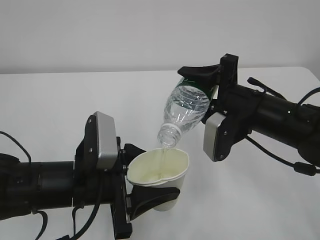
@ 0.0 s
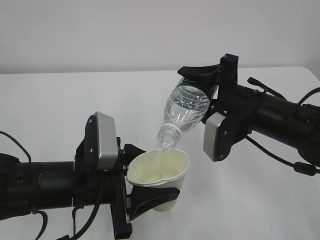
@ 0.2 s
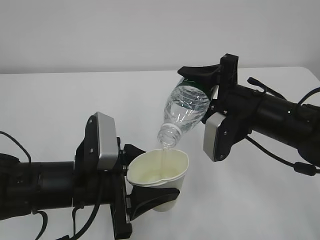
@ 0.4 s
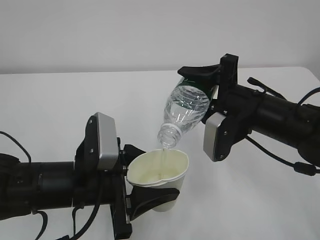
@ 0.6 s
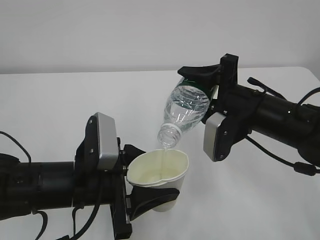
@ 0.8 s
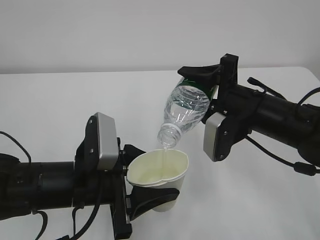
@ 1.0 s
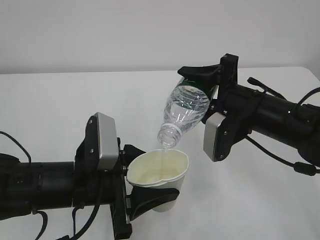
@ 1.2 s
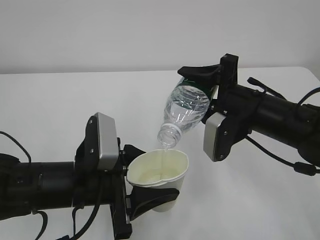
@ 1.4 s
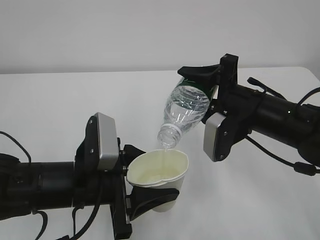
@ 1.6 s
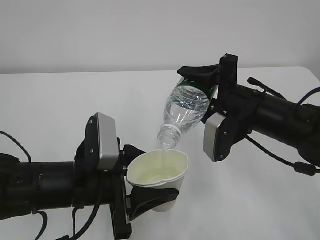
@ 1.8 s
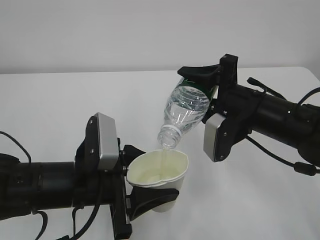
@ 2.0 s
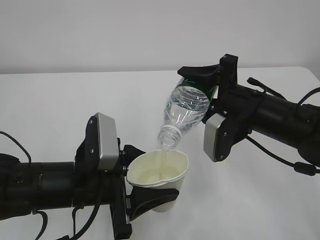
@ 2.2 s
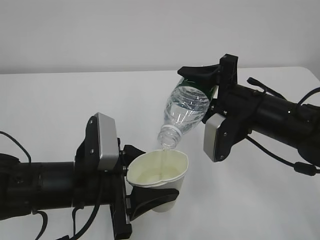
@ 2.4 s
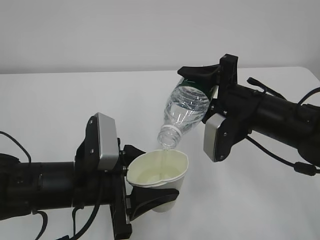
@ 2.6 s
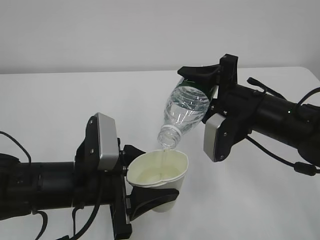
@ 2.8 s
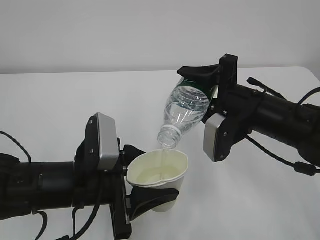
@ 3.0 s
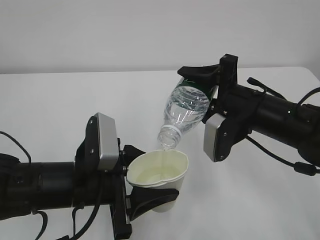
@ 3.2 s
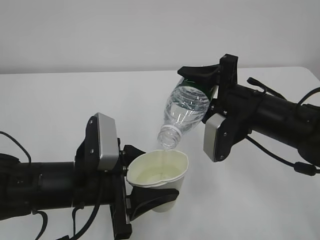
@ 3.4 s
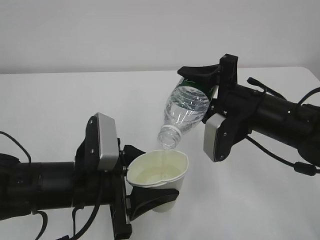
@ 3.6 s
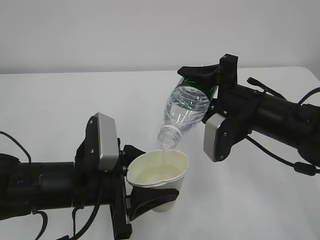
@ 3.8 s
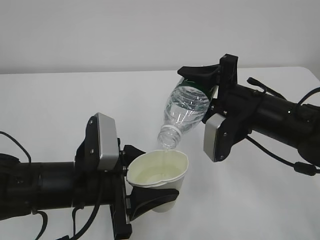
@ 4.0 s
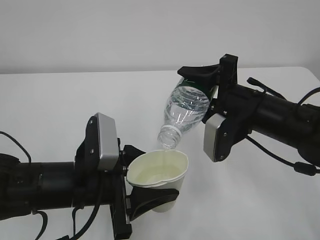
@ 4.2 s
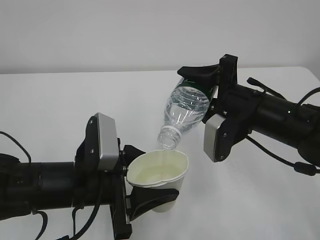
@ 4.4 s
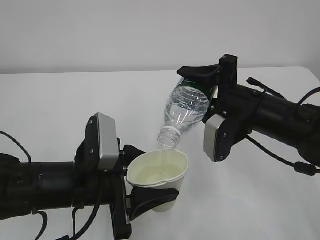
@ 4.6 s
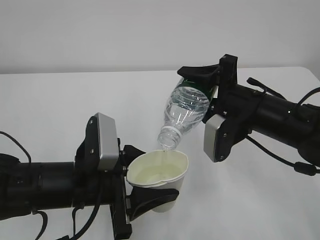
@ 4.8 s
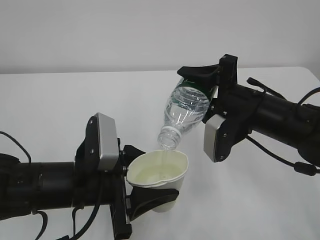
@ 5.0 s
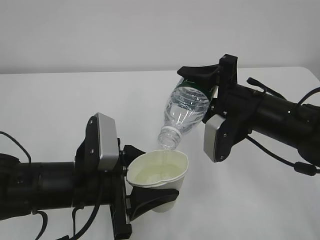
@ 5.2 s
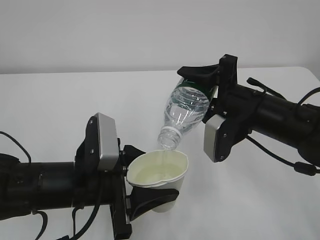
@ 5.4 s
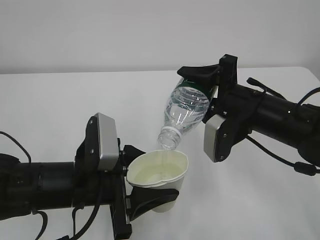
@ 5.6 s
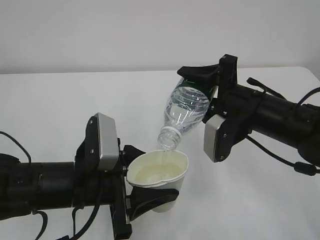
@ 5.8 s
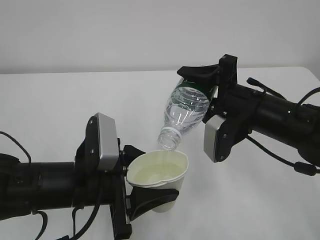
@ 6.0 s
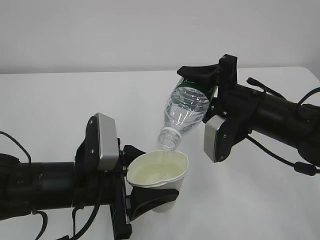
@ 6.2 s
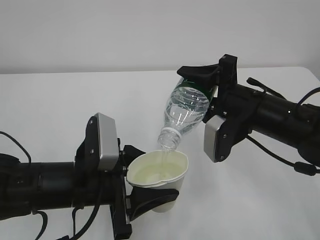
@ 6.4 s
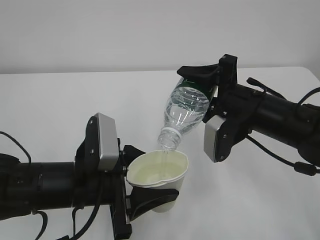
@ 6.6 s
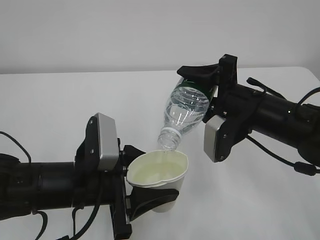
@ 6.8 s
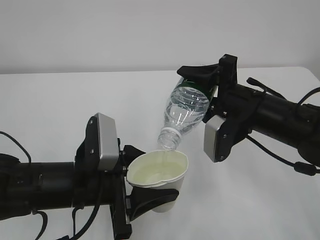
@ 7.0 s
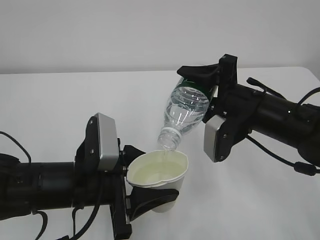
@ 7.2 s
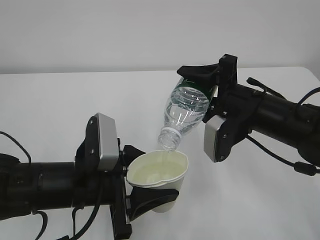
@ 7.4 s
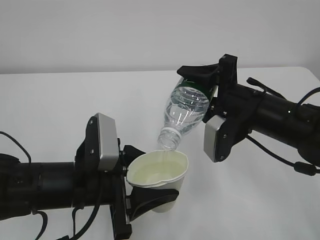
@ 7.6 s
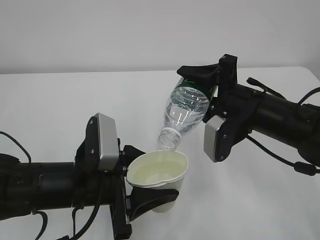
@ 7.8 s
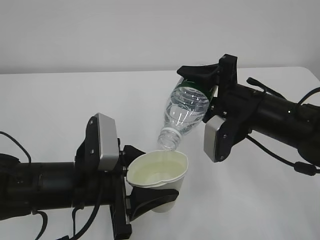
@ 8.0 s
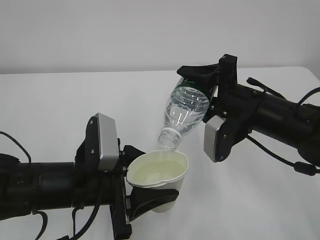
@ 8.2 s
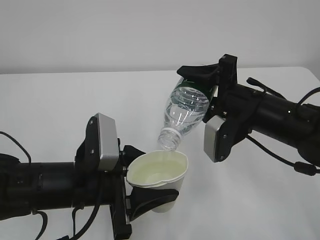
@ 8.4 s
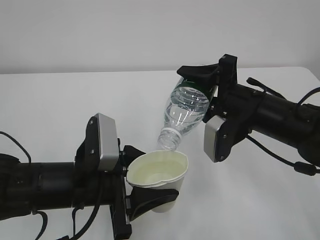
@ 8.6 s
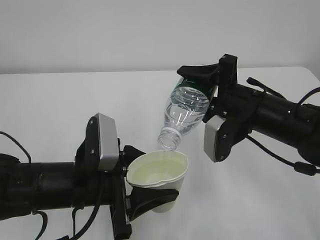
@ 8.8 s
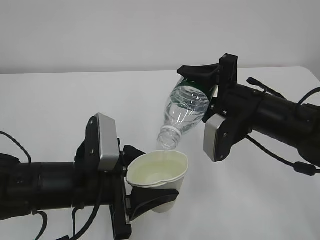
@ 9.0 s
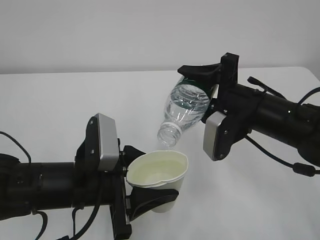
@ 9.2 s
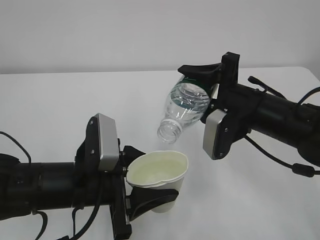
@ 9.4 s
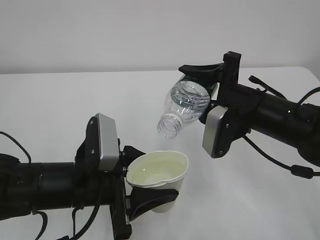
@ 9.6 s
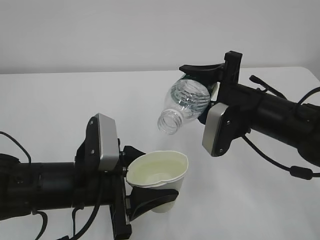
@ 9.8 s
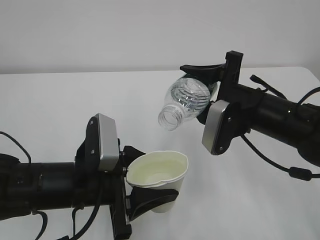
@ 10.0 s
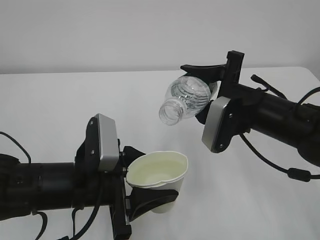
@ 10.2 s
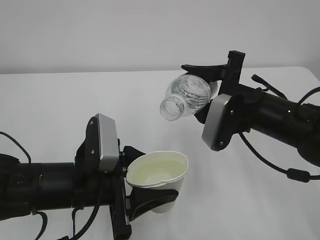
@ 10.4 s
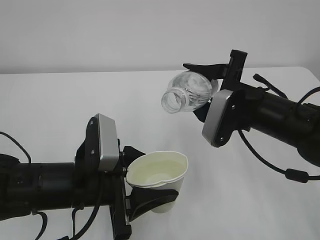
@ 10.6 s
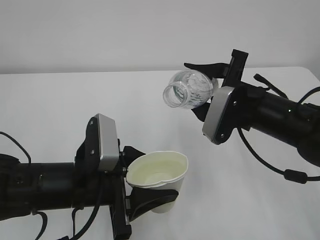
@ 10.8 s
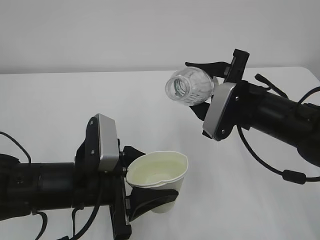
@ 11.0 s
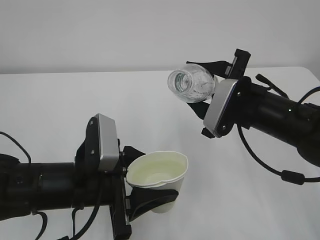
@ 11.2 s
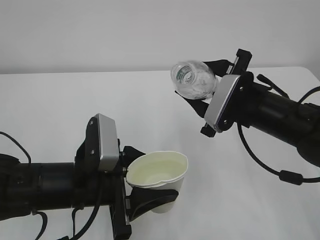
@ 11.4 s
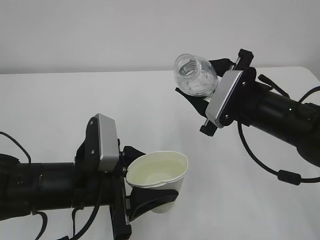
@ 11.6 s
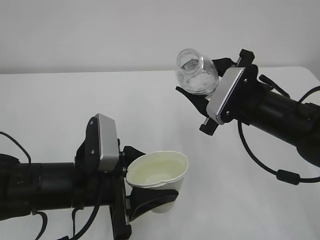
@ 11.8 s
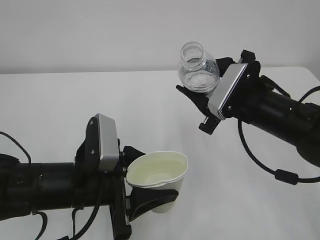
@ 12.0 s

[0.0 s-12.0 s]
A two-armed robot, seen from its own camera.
0.0 to 9.0 s: Both grippers stay put.

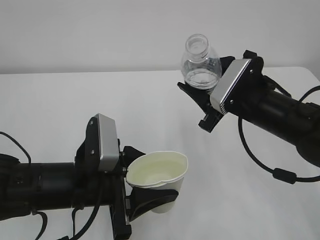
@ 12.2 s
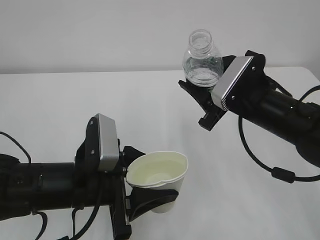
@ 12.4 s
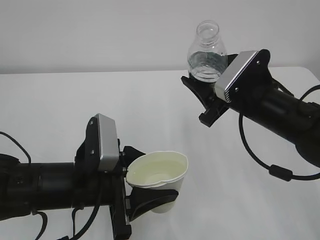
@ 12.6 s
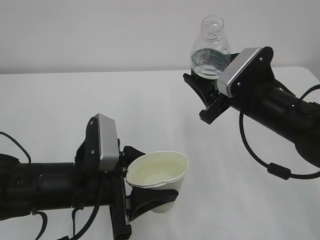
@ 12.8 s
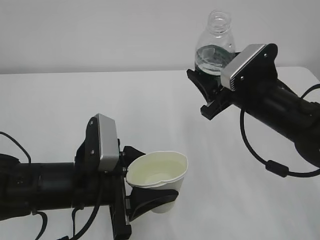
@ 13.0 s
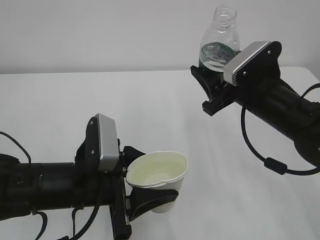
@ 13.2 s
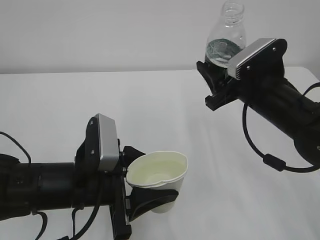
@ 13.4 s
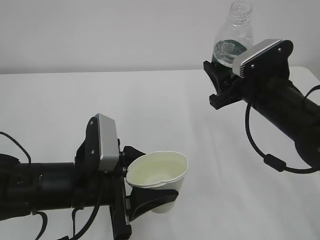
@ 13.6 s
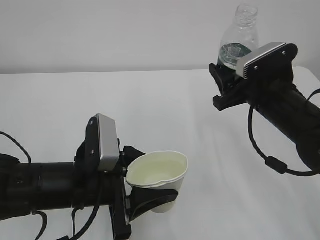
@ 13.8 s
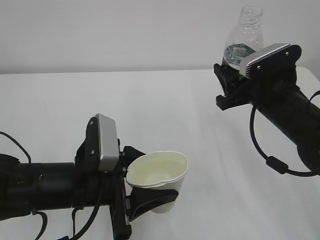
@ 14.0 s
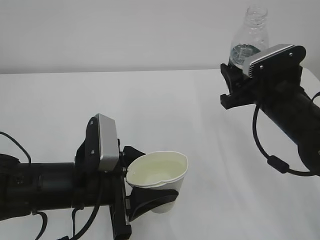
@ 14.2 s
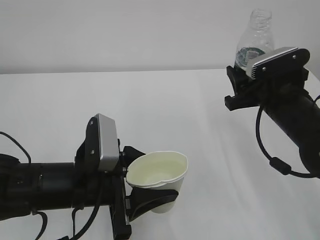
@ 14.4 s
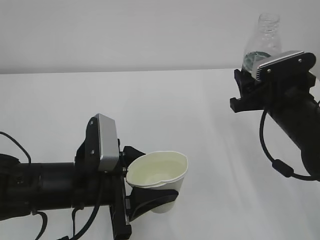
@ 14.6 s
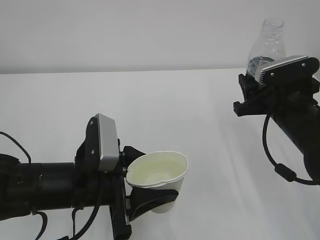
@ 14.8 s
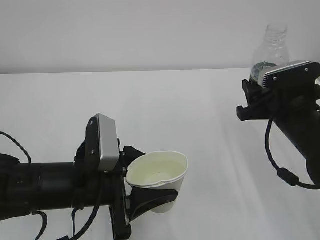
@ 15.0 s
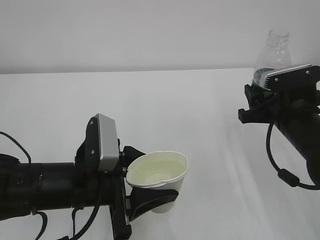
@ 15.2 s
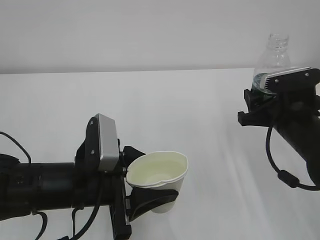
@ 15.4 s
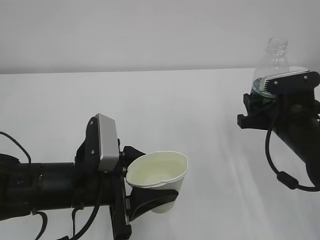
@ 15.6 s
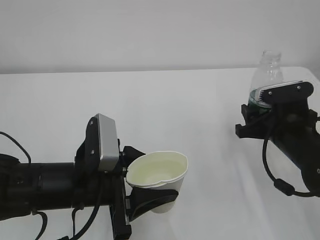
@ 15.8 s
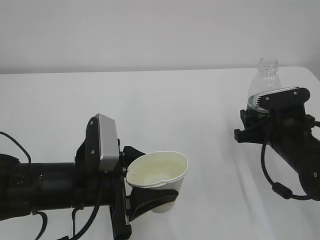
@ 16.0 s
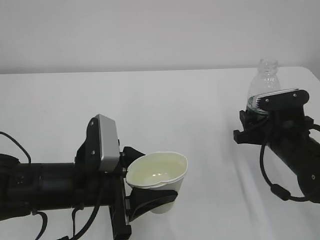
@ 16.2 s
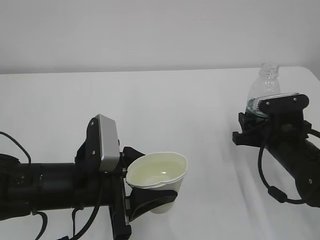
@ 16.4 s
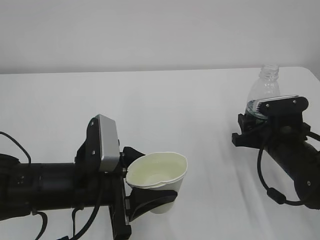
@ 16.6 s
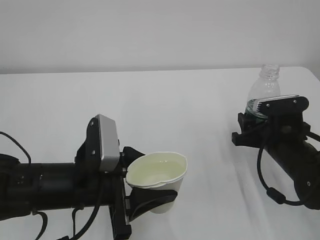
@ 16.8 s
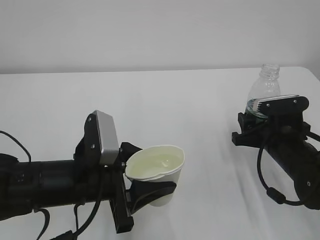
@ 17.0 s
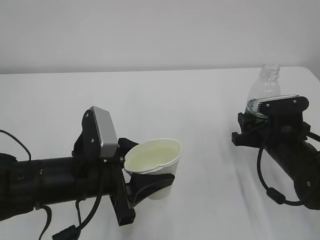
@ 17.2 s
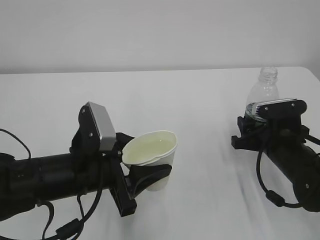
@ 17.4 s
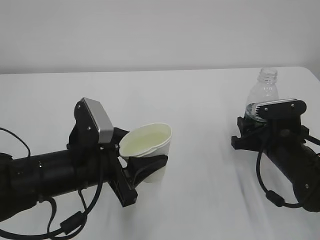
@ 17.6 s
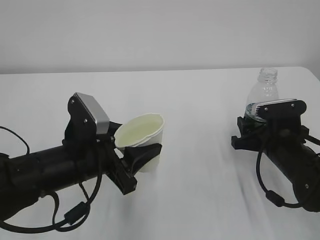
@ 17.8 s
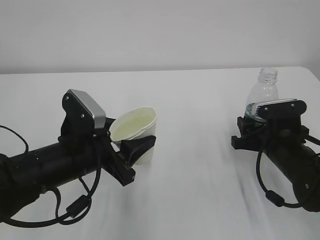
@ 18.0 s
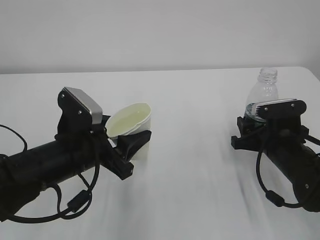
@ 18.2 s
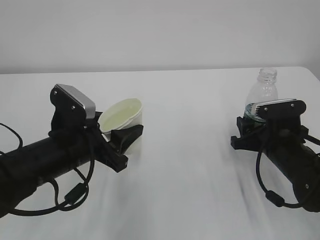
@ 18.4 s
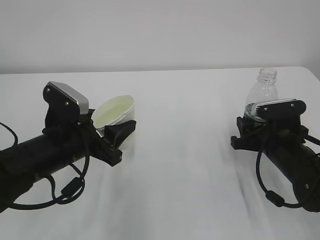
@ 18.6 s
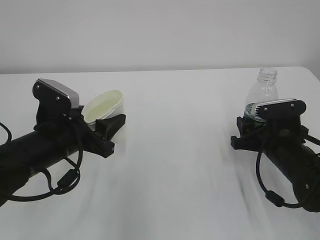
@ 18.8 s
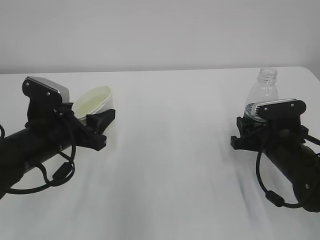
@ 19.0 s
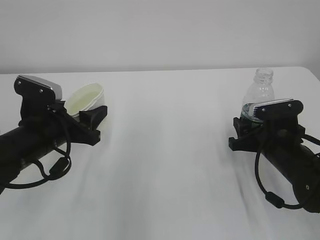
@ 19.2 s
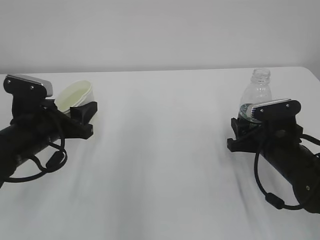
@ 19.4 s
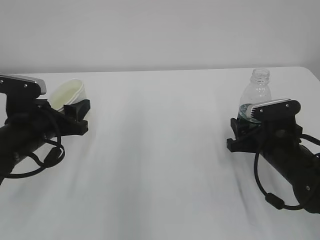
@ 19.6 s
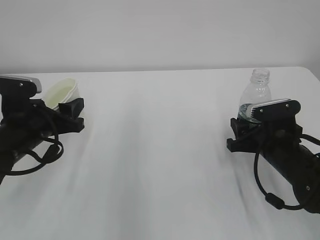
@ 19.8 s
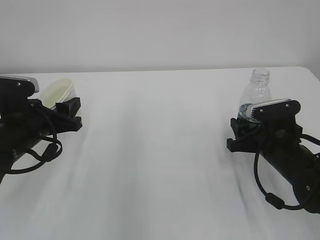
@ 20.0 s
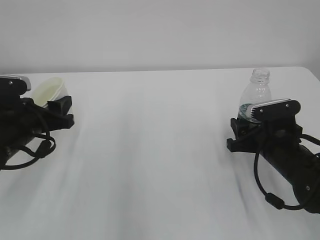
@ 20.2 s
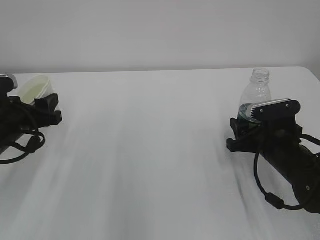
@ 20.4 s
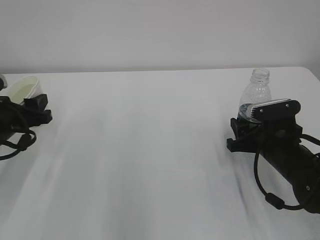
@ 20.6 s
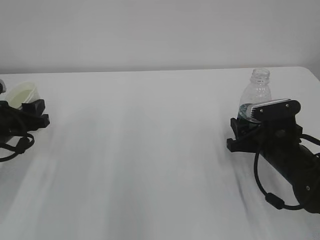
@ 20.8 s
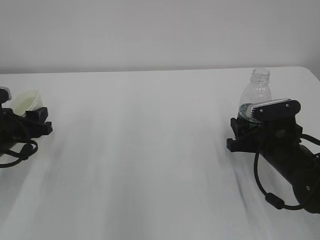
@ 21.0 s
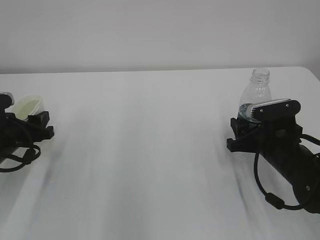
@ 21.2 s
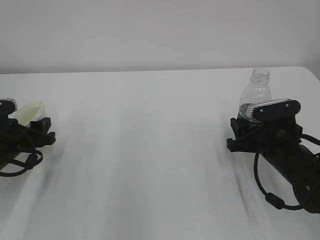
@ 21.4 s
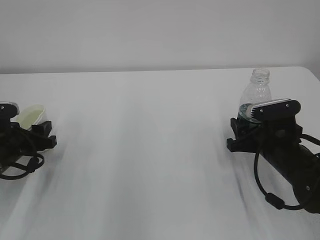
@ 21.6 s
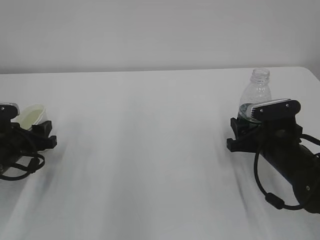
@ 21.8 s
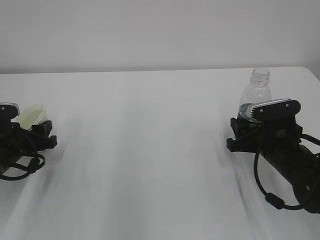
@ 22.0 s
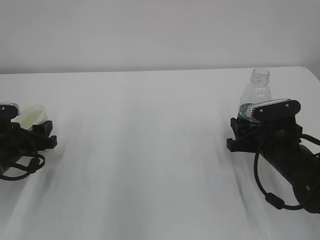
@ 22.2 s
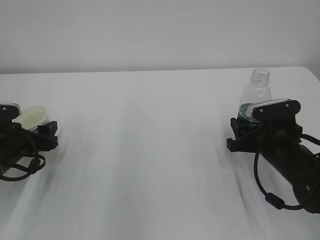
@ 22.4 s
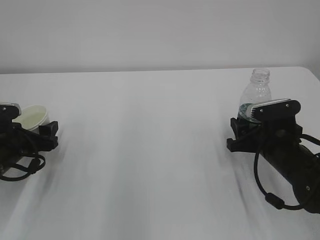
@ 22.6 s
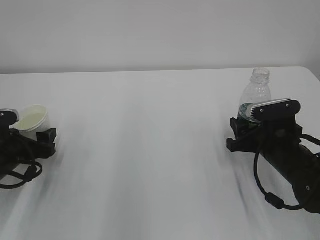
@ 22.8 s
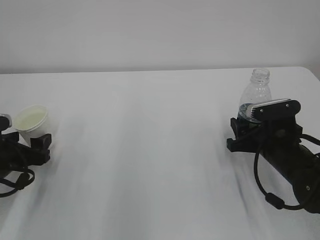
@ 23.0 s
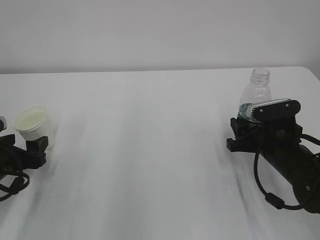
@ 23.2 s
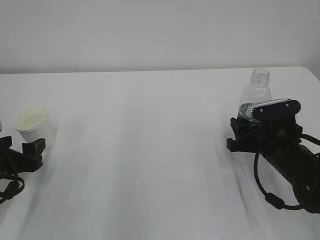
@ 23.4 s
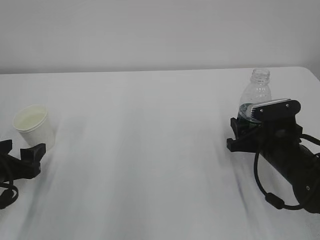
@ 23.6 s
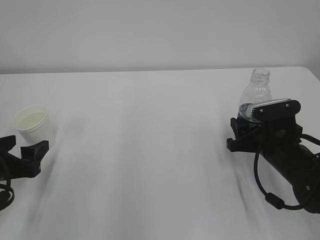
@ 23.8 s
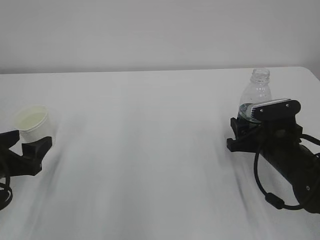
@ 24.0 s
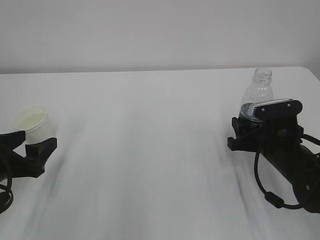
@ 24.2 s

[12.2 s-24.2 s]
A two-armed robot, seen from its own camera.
15.2 to 16.6 s: The right gripper travels downward by roughly 5 cm.
18.2 to 19.8 s: The left gripper goes approximately 10 cm to the left.
19.8 to 21.2 s: The left gripper shifts some 5 cm to the left.
21.2 to 22.6 s: The left gripper opens up.
22.6 to 24.2 s: The left gripper shifts approximately 5 cm backward.
